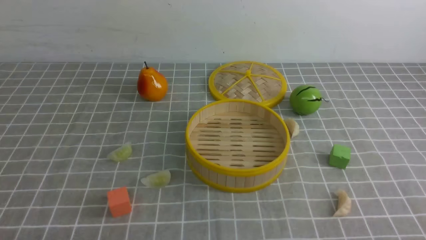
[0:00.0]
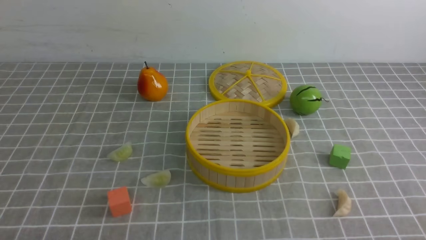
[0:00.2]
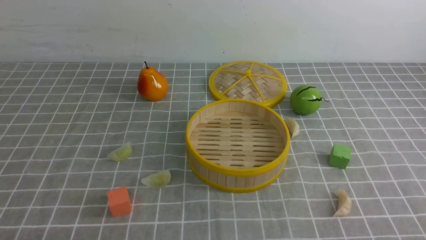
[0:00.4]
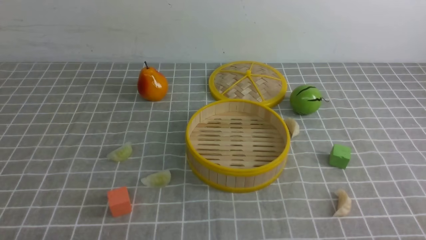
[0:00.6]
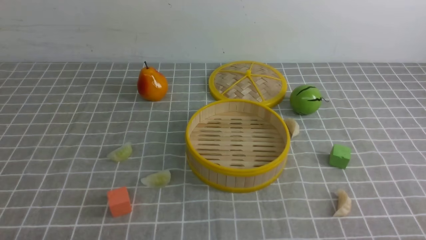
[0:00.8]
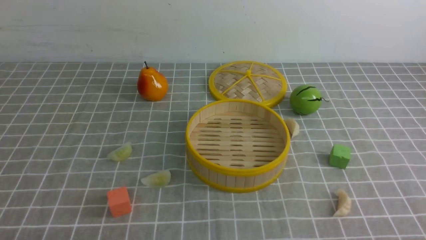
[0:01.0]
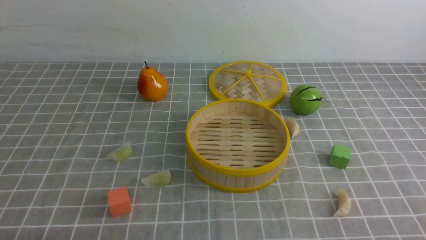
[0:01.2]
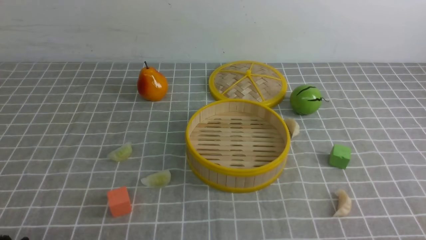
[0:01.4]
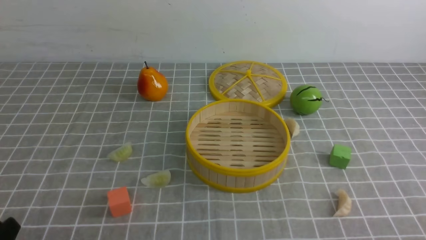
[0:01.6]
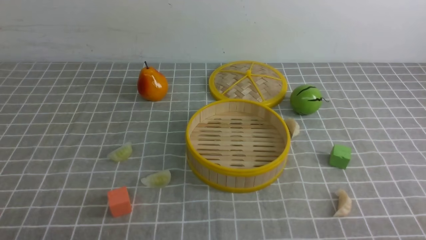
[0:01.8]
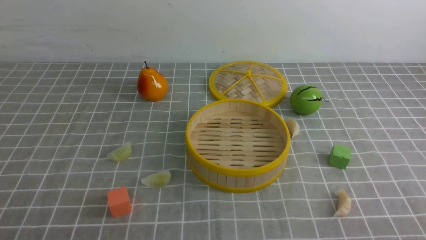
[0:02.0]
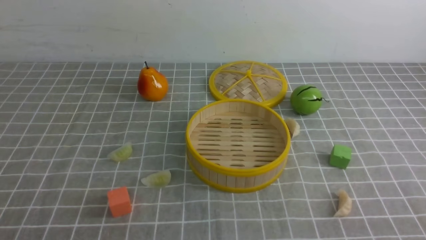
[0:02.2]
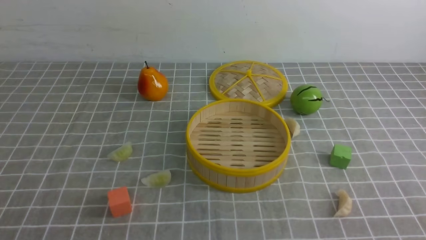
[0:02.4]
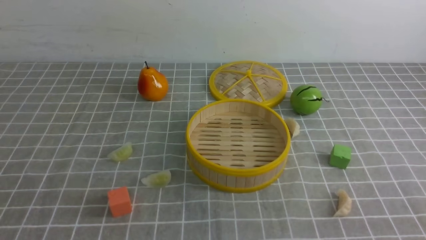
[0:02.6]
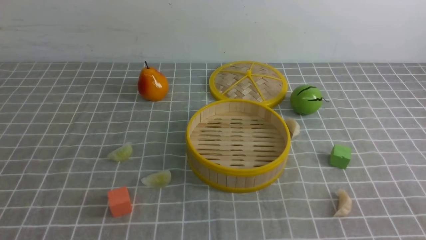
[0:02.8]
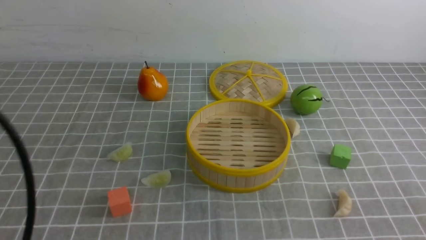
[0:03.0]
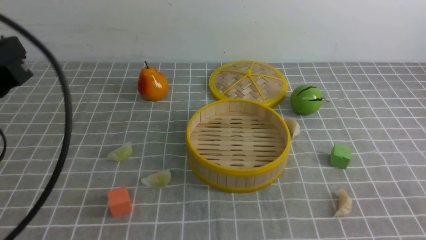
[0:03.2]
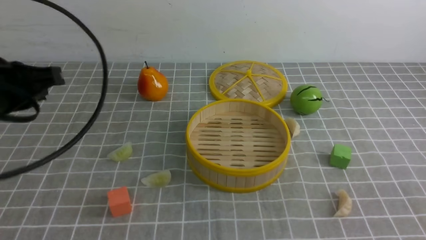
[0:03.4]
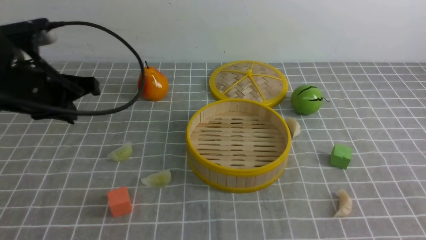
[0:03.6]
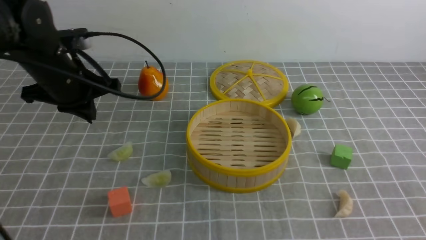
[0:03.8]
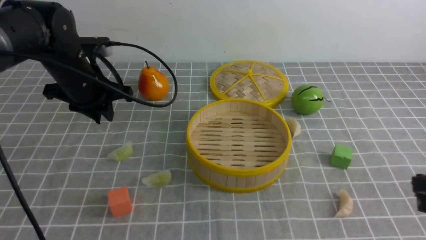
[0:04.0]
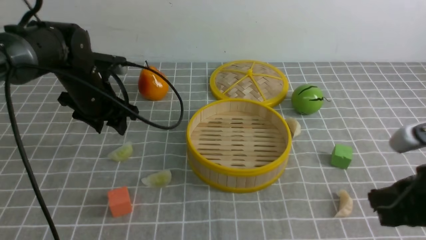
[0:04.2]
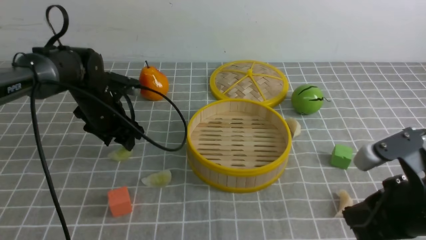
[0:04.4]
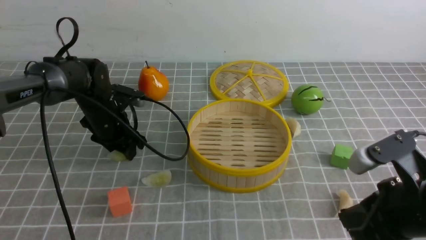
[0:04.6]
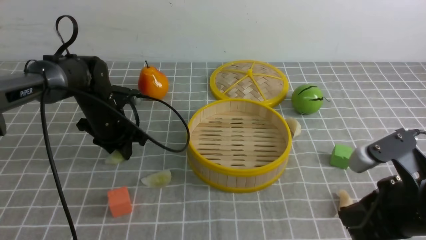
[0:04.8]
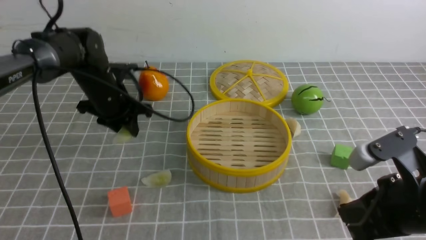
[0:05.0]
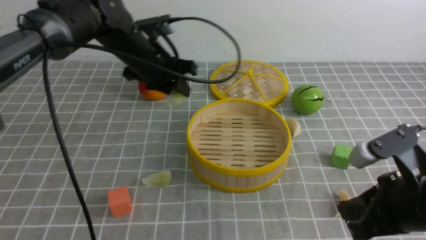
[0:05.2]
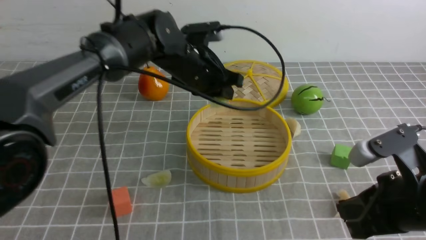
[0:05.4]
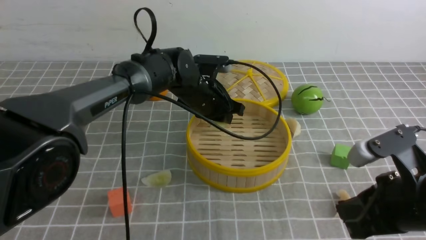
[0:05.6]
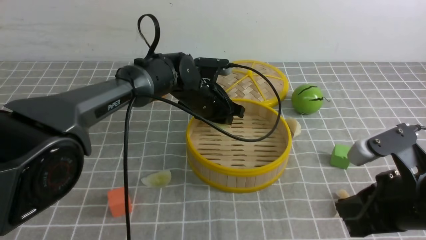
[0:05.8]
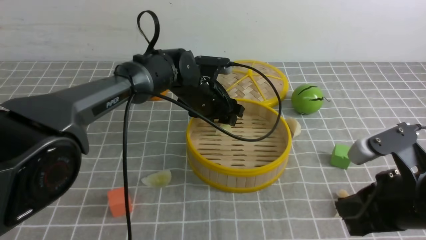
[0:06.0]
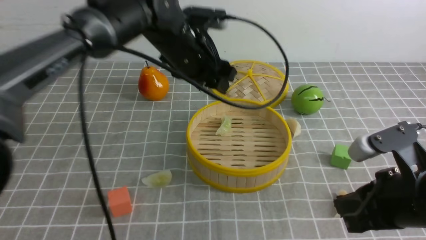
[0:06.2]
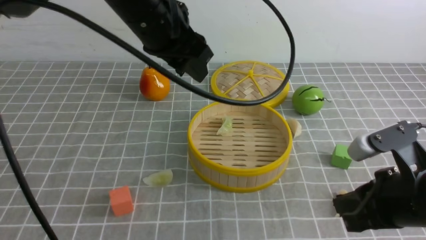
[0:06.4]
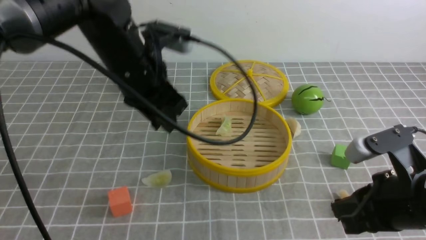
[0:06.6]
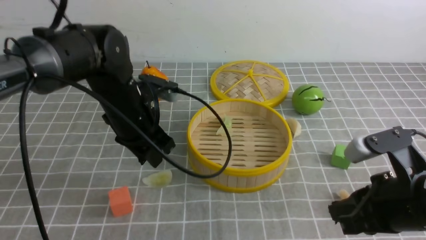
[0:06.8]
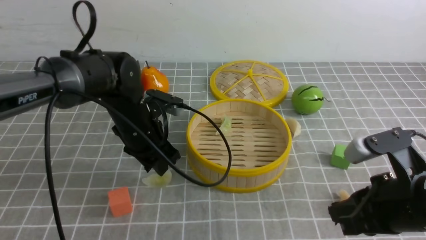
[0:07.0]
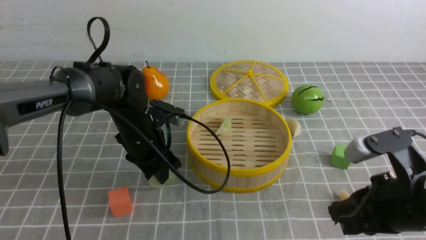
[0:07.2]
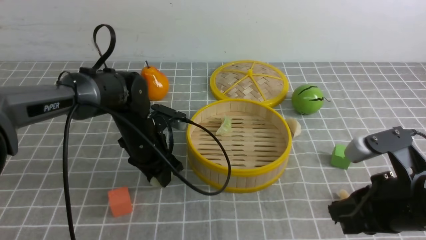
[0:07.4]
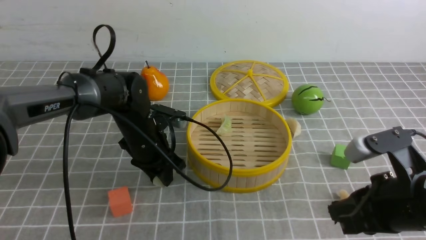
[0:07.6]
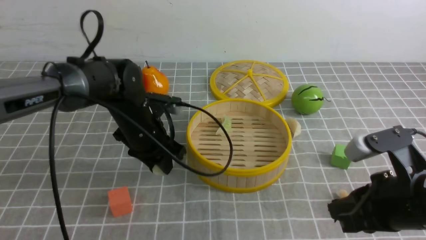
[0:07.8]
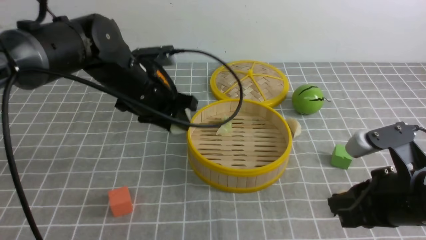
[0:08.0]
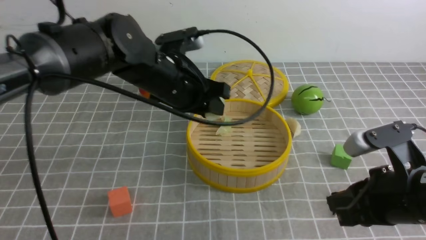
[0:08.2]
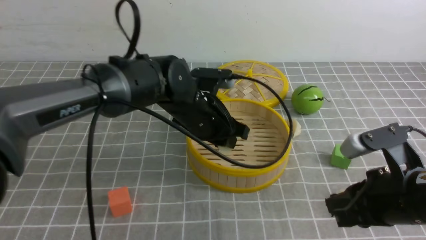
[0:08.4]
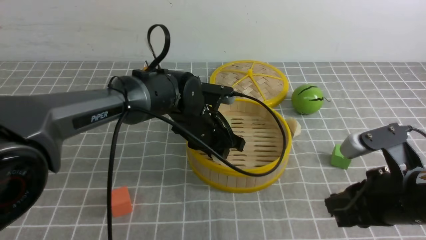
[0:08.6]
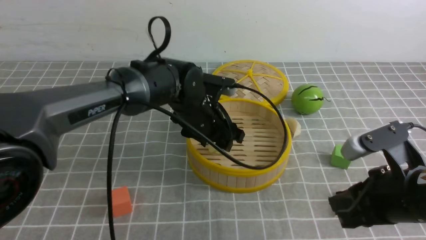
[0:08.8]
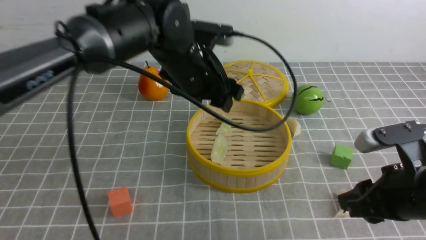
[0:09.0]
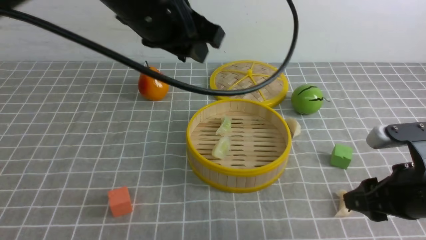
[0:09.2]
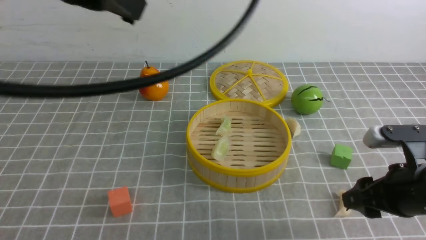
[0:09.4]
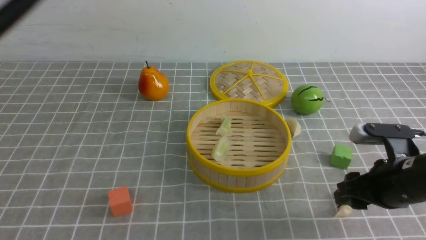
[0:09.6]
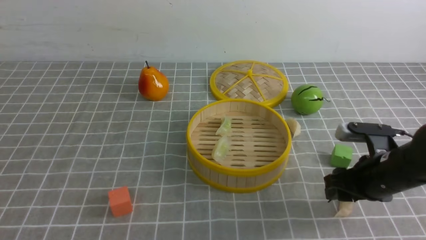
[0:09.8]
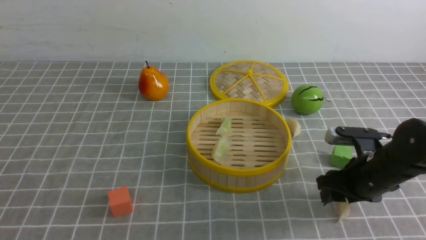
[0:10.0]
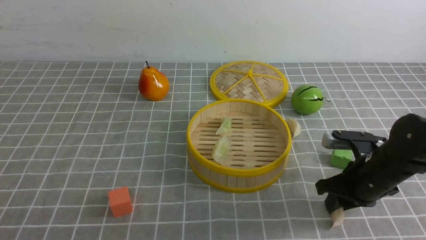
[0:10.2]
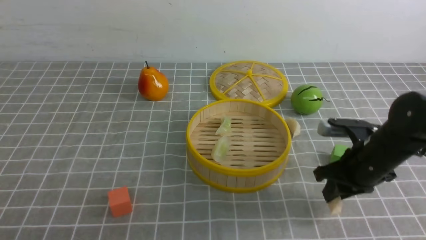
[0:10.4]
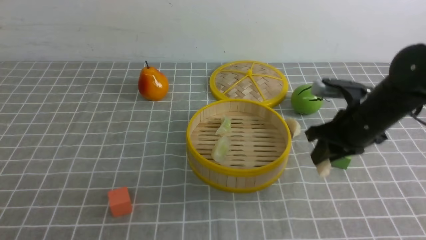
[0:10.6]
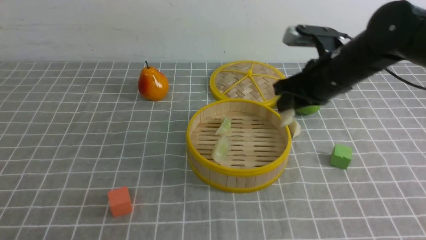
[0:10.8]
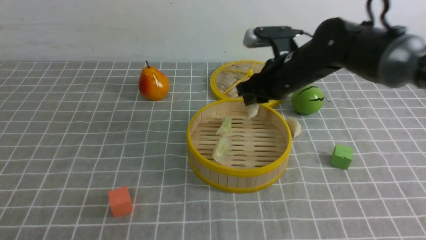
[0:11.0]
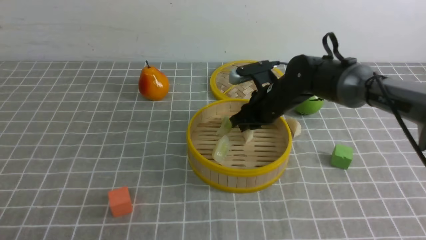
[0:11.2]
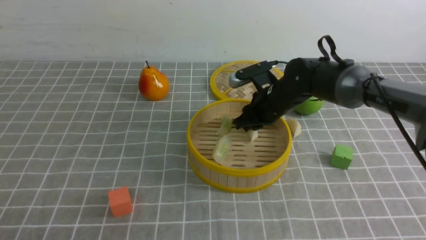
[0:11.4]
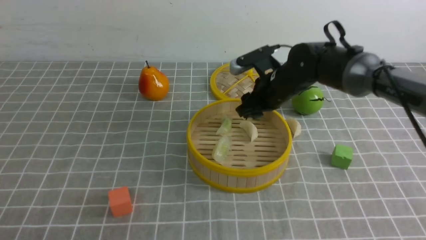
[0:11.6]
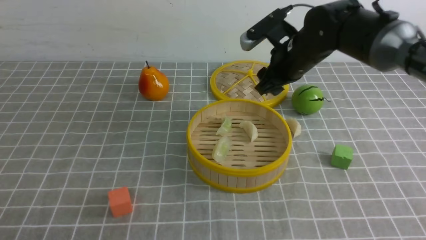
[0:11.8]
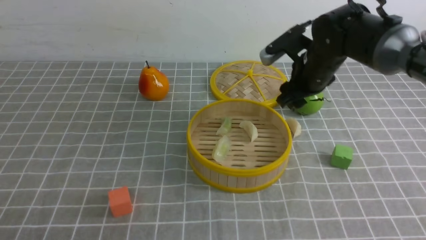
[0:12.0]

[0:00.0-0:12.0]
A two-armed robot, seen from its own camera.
Task of the whole recording: put the dumplings into the steamer on the table with the grey tablecloth.
Step, 0:00.0 to 0:04.8: use the left arm to grab a dumpling.
Step, 0:05.0 to 0:06.0: use the left arm to put the dumpling into the steamer.
Step, 0:06.2 to 0:07.6: use the left arm to grab a dumpling.
Step, 0:08.0 to 0:08.8: use the left arm to put the dumpling into the steamer.
Step, 0:09.0 to 0:10.4: use the right arm to grab a dumpling.
Step, 0:10.6 to 0:11.6: use the right arm to put the dumpling into the steamer.
0:01.6 to 0:03.0: The left gripper shifts roughly 20 cm upward and forward, and closes up.
0:03.0 to 0:04.4: The left gripper moves forward and downward, some 35 cm, and opens its fingers; the right gripper shifts some 15 cm forward and to the left.
0:04.4 to 0:06.0: The left gripper is displaced to the right by some 15 cm, and closes and opens again.
0:06.0 to 0:07.6: The left gripper goes some 15 cm to the left, downward and backward, and closes up.
0:07.6 to 0:09.0: The left gripper swings up and down, approximately 15 cm each way, with 2 reversals; the right gripper opens up.
0:09.0 to 0:10.4: The right gripper moves forward, approximately 10 cm, while the left gripper goes some 40 cm backward and to the left, and closes its fingers.
0:10.4 to 0:12.0: The right gripper goes roughly 15 cm forward and to the left, and opens up.

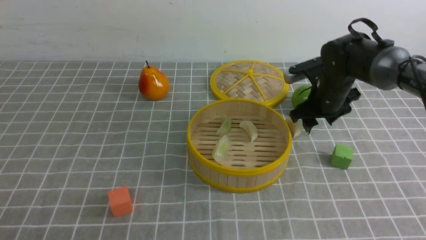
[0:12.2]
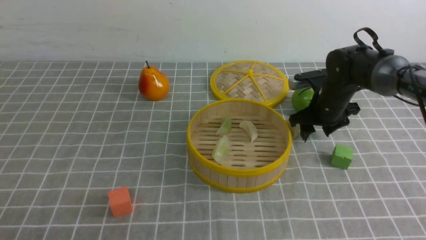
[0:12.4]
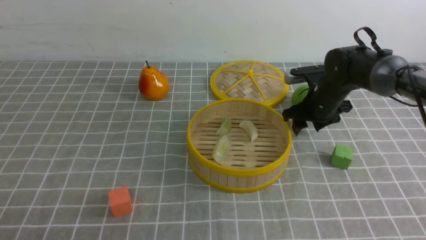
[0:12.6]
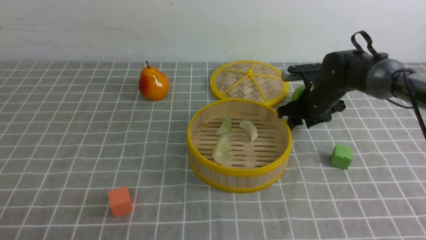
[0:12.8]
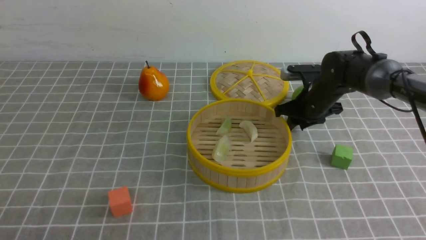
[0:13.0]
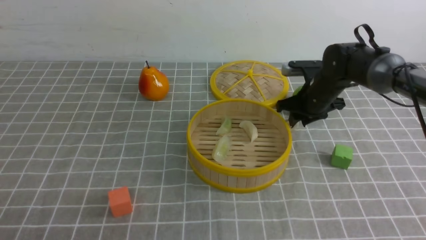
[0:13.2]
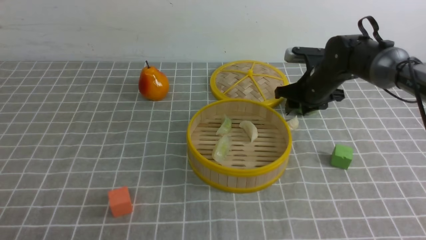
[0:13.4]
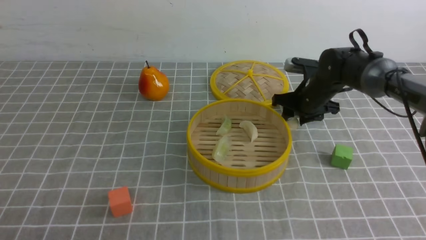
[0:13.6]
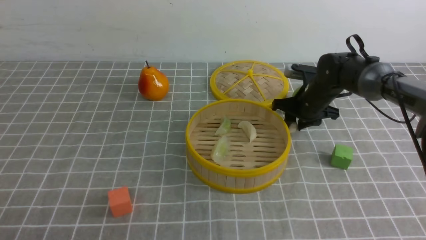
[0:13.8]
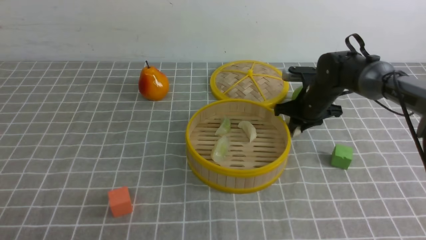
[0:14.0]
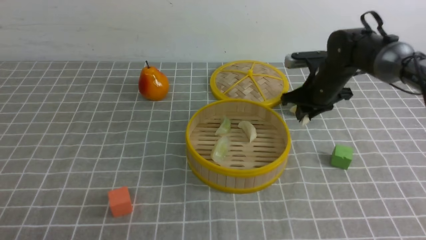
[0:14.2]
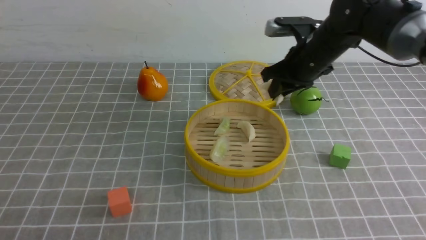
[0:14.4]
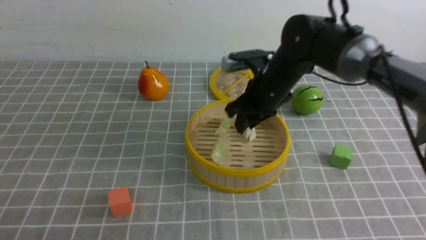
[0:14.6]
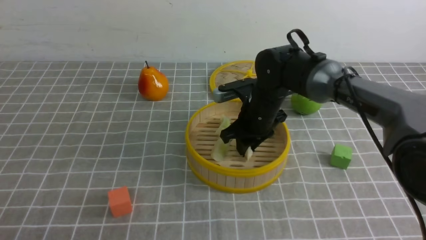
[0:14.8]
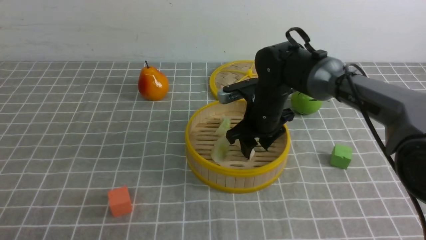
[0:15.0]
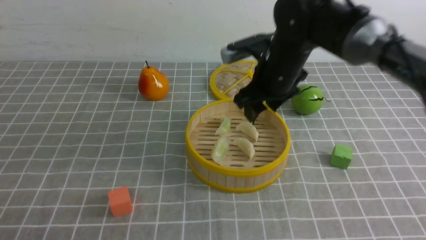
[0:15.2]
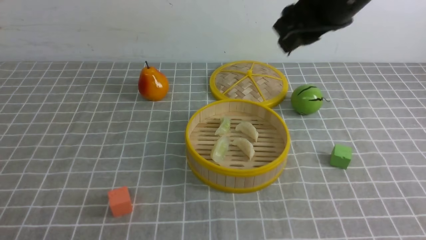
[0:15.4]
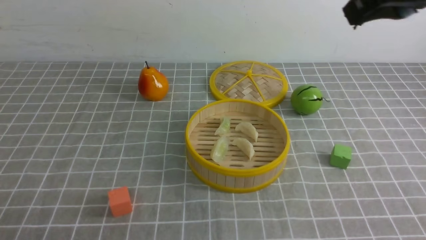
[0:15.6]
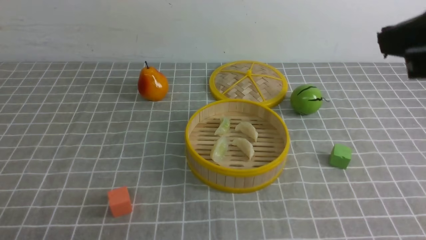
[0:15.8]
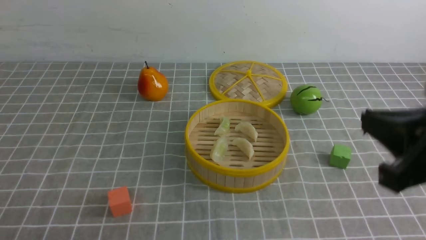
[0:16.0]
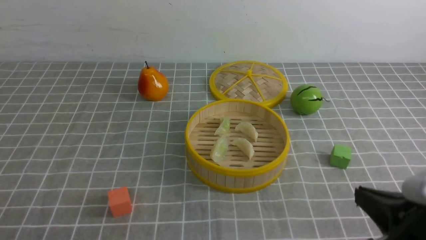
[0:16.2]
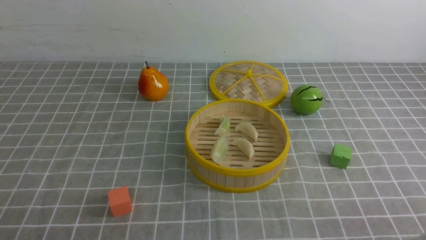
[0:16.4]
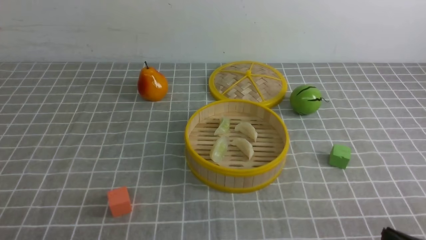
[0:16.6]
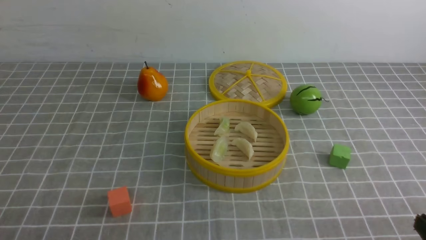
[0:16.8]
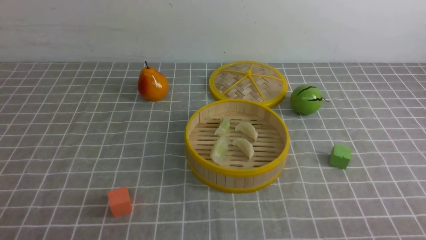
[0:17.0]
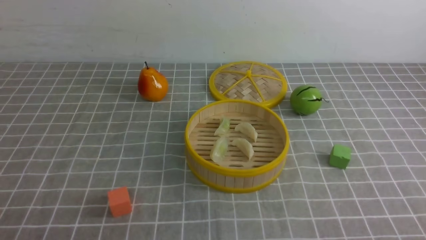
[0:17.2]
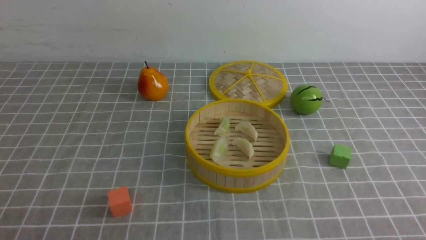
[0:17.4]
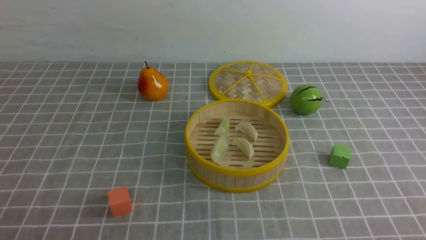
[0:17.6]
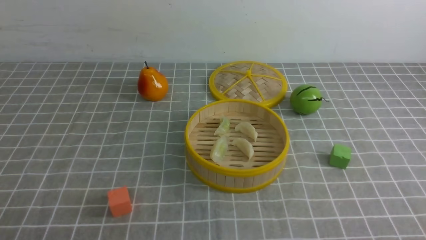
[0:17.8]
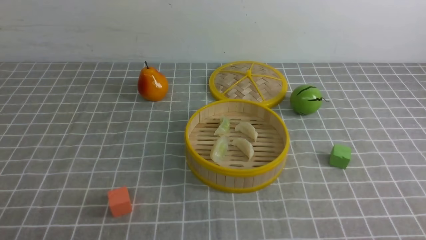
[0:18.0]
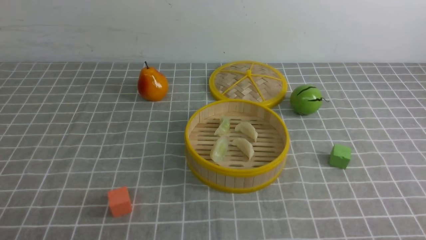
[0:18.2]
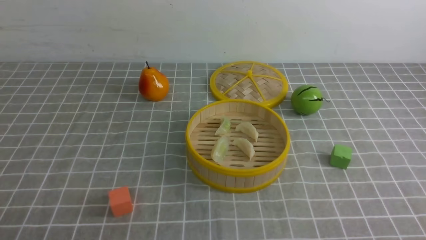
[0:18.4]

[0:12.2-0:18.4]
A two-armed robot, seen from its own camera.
Task of the whole recording: put the dumplings into the steamer on the table with the grey tablecloth.
Step, 0:12.2 to 0:14.0: use the right arm to grab a dumpling.
Step, 0:14.2 to 0:15.2: use the right arm to put the dumpling into the steamer.
0:12.2 to 0:13.8: The right gripper ends up some 5 cm from where it was, and closes.
0:13.8 to 0:15.4: The right gripper goes up and down, approximately 25 cm each way, reversing 2 times.
0:15.4 to 0:16.8: The right gripper travels downward, backward and to the right by approximately 35 cm, and closes its fingers.
